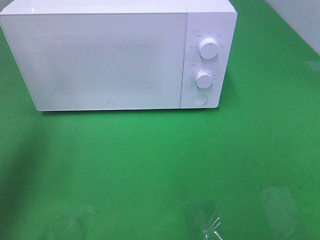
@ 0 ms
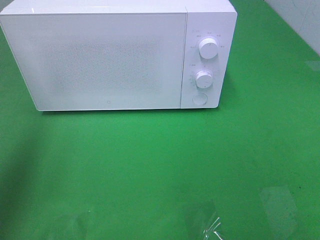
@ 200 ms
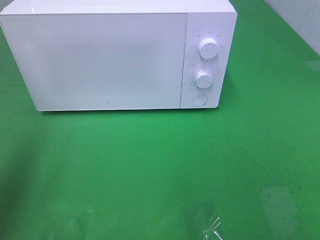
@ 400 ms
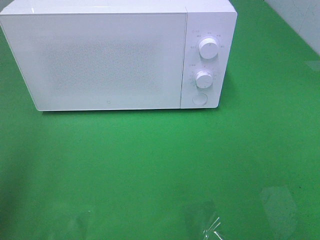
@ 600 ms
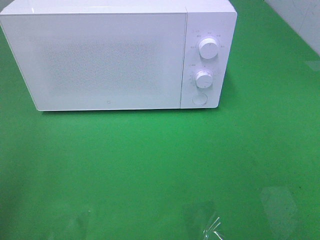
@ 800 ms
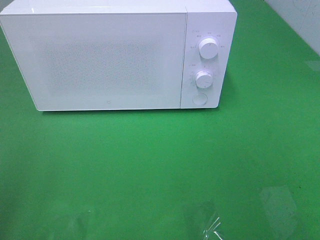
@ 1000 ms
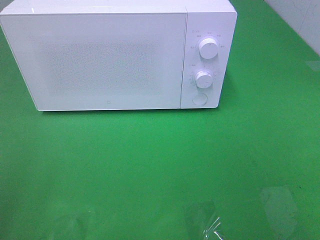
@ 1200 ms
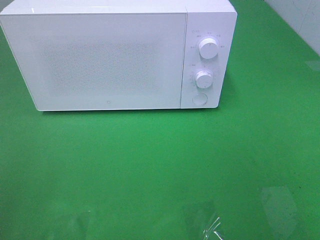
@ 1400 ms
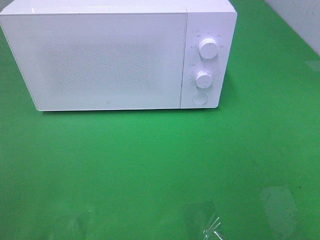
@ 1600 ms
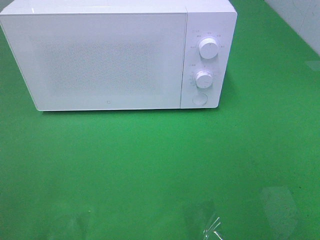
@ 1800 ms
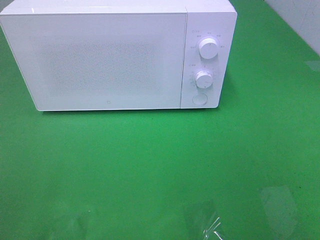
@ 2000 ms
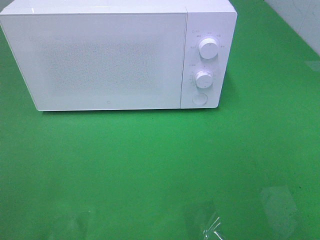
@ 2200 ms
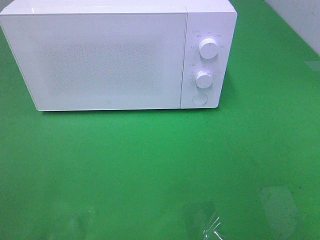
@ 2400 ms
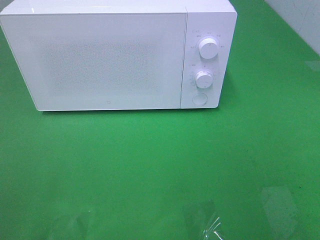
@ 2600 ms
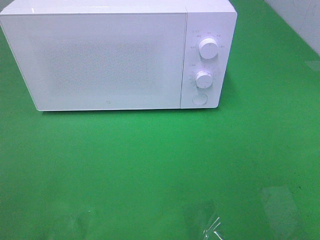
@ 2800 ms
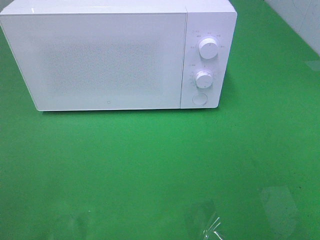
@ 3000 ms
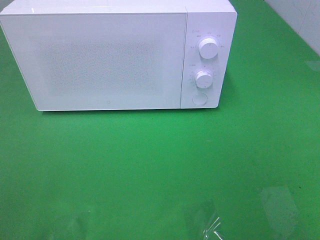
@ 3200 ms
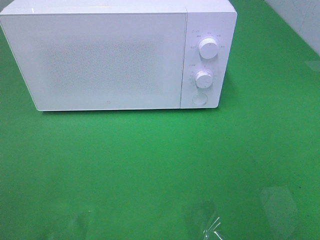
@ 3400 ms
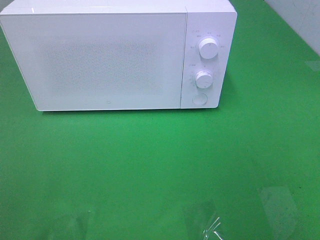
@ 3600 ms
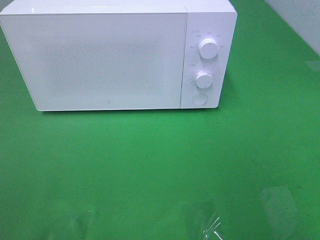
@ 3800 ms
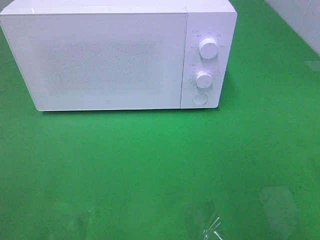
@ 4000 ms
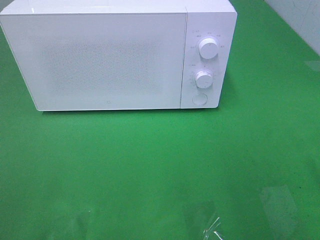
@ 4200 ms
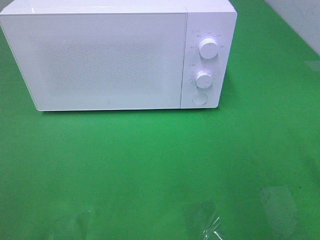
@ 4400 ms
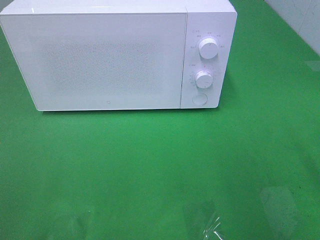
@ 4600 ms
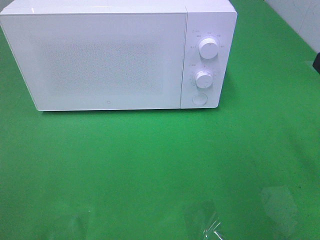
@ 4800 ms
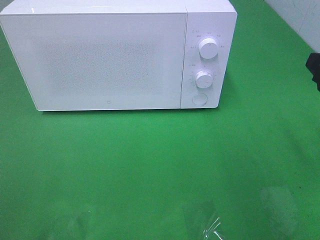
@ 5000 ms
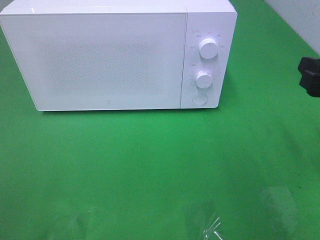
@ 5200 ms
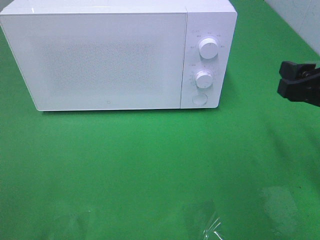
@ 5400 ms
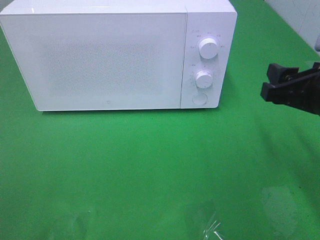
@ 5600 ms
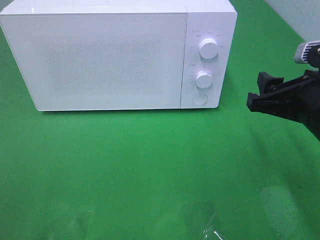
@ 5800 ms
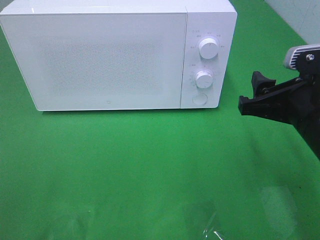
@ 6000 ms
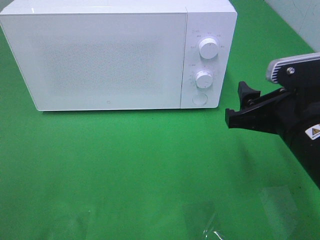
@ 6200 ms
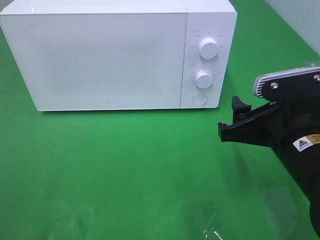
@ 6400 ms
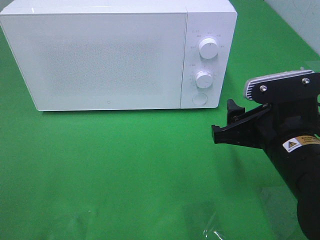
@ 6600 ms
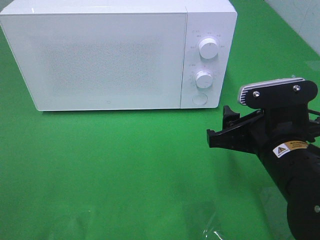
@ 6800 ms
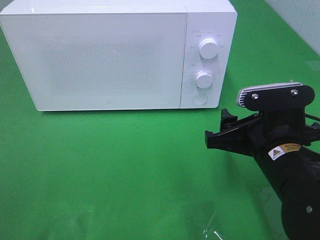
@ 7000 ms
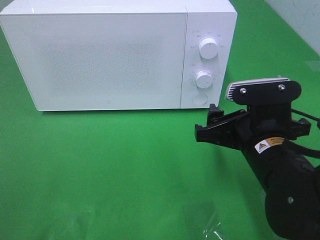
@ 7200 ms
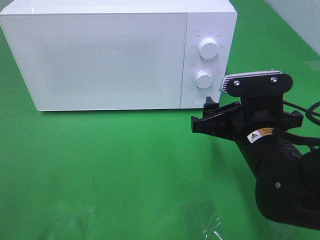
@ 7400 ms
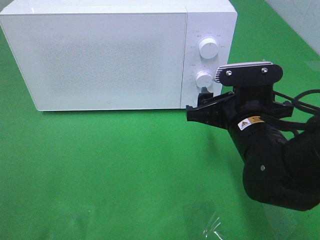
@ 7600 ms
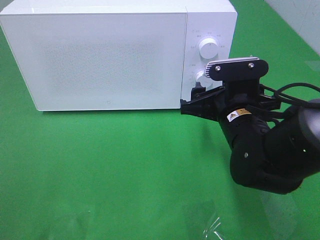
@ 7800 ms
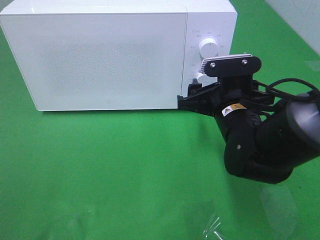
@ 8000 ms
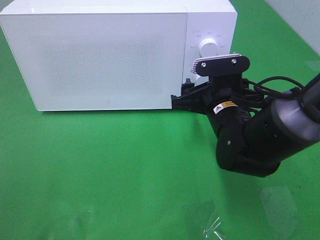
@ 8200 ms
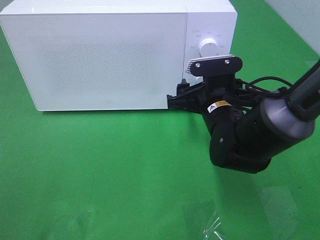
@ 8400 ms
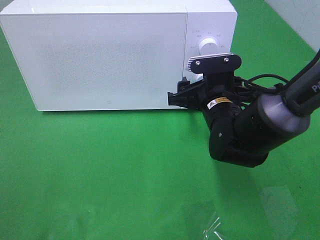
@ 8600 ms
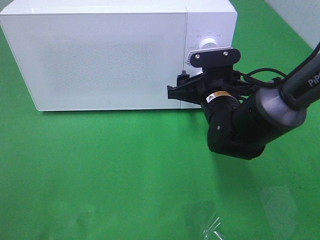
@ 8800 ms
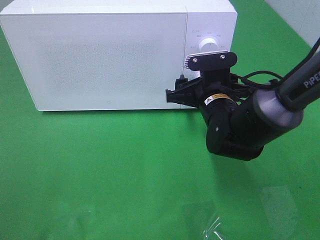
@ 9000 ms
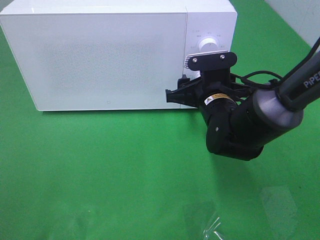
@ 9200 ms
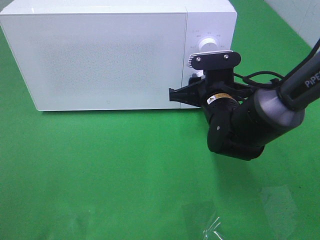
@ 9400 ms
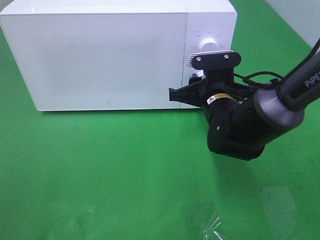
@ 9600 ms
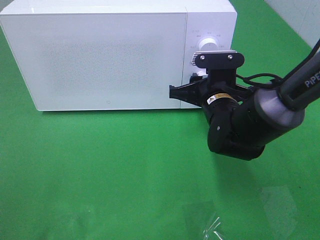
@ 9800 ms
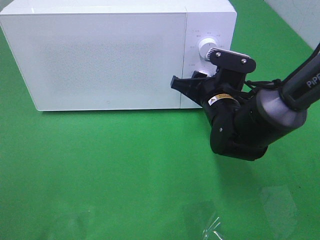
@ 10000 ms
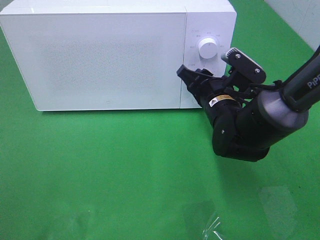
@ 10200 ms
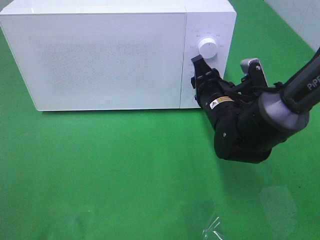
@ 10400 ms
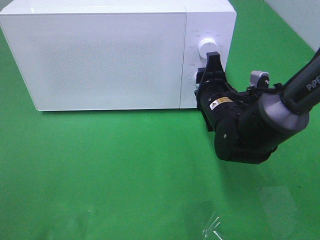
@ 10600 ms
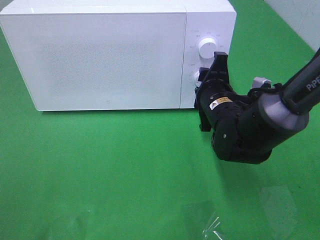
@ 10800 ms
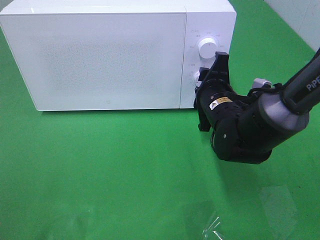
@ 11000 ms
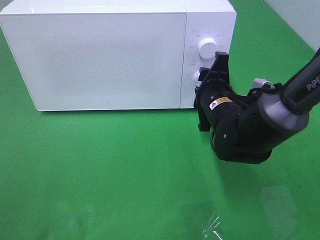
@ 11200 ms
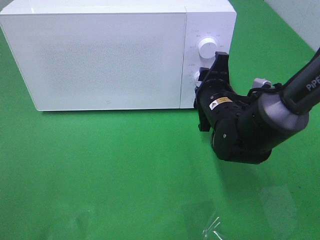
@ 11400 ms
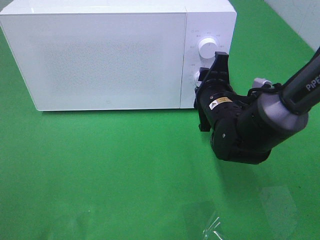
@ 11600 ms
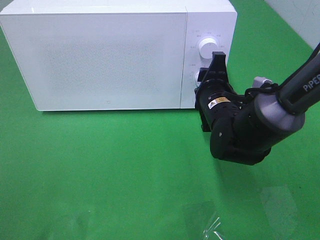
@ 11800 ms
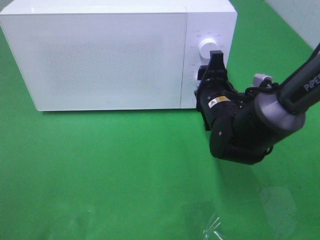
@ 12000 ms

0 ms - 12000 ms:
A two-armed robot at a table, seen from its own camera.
Task of the whole recording: Heat the burger.
0 ms - 1600 ms: The left gripper moves backward, roughly 25 cm.
4400 ms - 6000 ms: The right gripper moves to the left, downward and forward, about 10 cm.
6000 ms - 7600 ms: The right gripper heads to the left and downward, covering approximately 10 cm.
7600 ms - 9000 ms: The right gripper is displaced forward by approximately 10 cm.
9000 ms - 10400 ms: The right gripper closes its fingers.

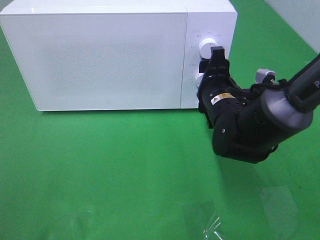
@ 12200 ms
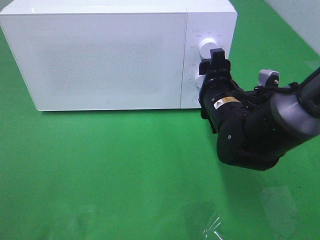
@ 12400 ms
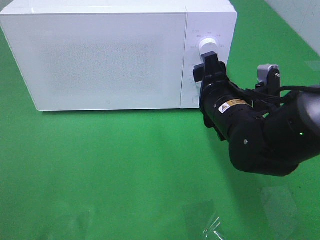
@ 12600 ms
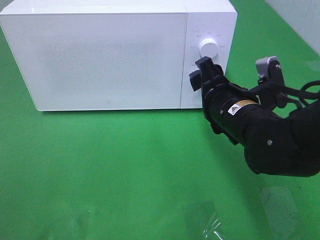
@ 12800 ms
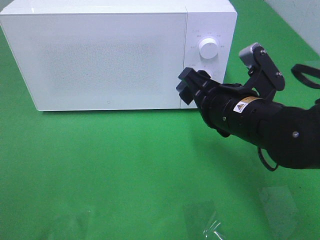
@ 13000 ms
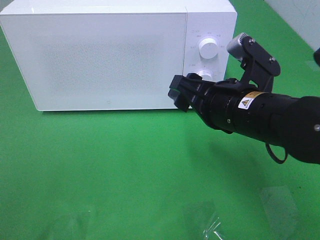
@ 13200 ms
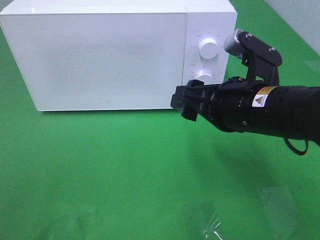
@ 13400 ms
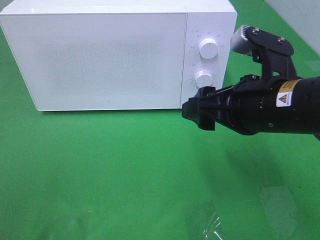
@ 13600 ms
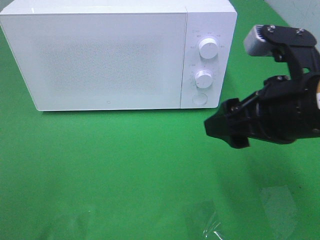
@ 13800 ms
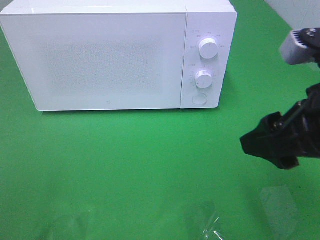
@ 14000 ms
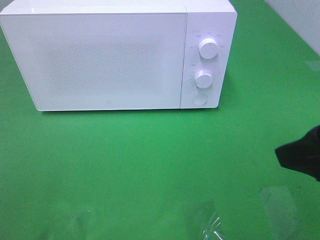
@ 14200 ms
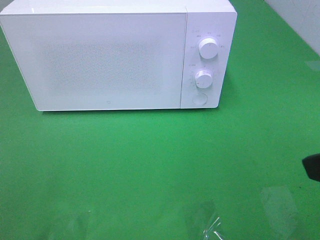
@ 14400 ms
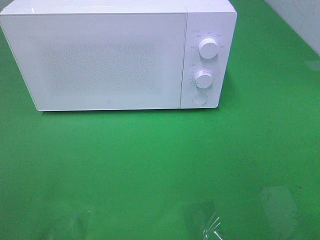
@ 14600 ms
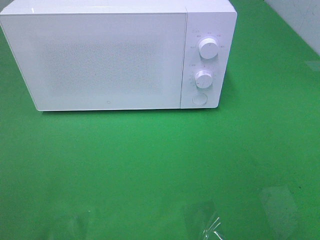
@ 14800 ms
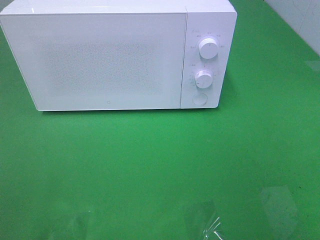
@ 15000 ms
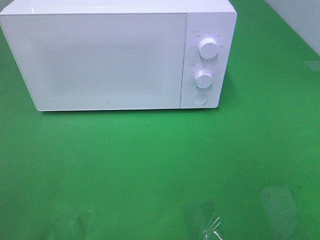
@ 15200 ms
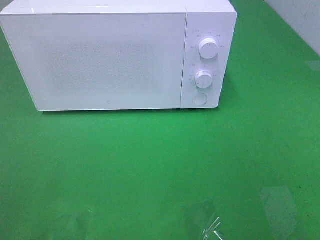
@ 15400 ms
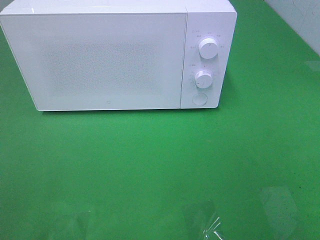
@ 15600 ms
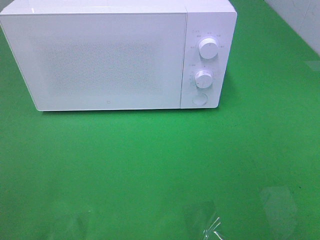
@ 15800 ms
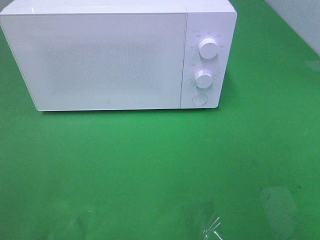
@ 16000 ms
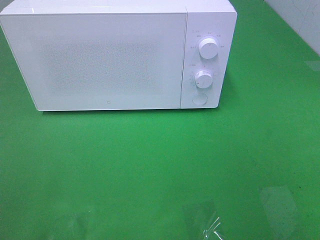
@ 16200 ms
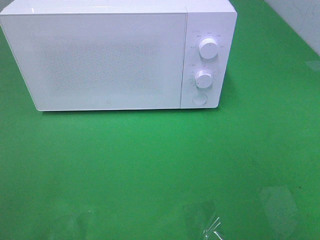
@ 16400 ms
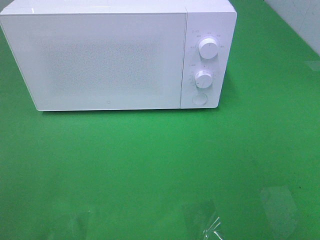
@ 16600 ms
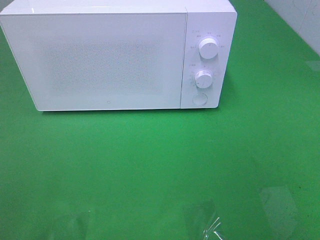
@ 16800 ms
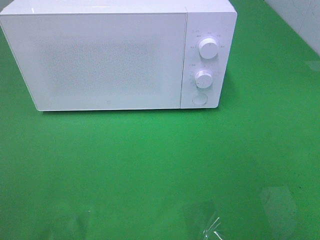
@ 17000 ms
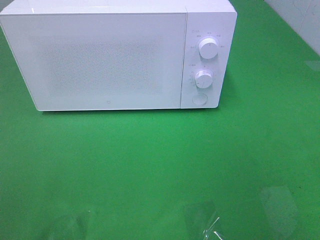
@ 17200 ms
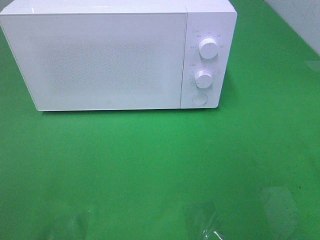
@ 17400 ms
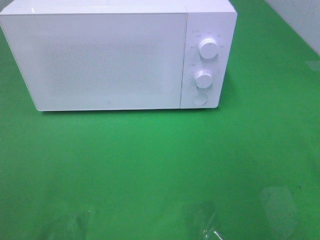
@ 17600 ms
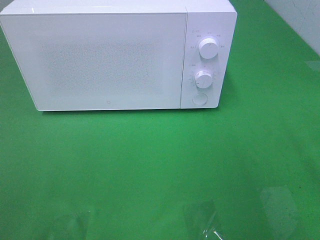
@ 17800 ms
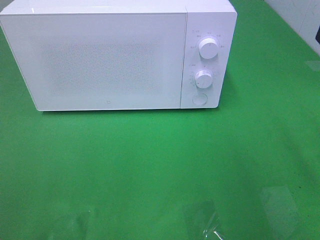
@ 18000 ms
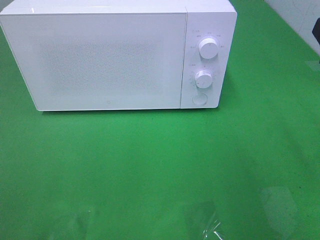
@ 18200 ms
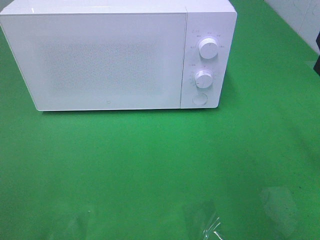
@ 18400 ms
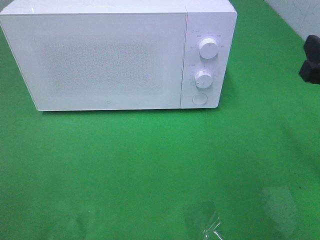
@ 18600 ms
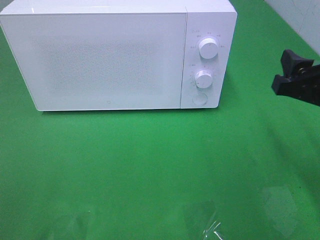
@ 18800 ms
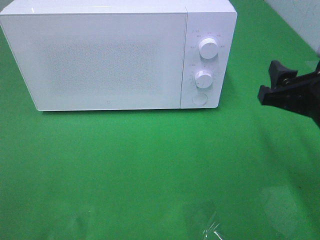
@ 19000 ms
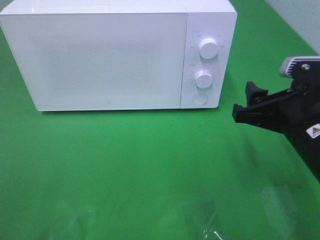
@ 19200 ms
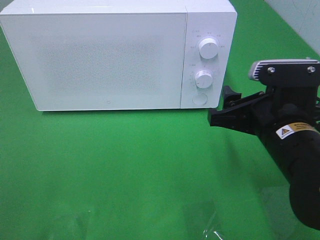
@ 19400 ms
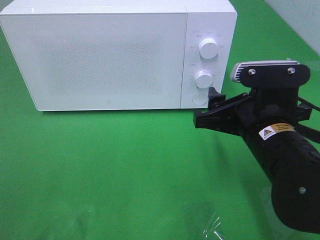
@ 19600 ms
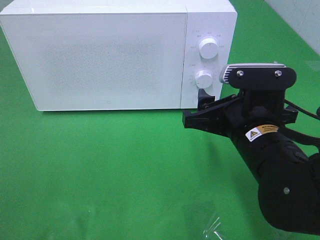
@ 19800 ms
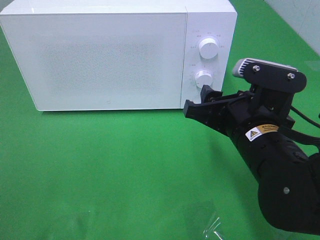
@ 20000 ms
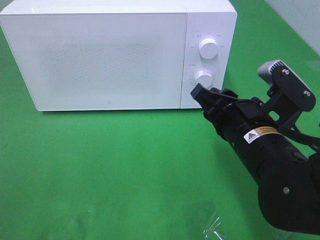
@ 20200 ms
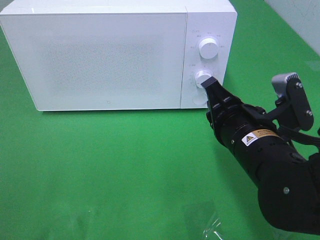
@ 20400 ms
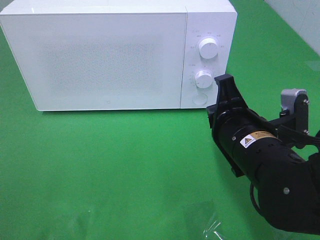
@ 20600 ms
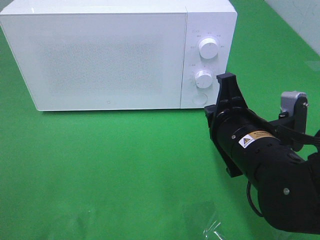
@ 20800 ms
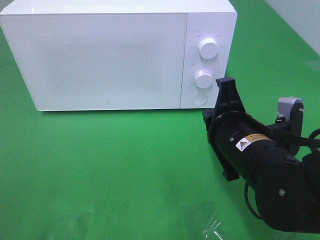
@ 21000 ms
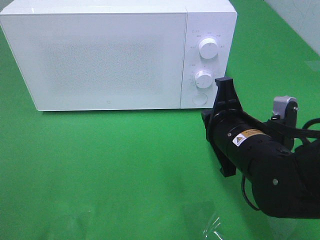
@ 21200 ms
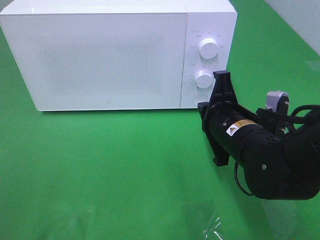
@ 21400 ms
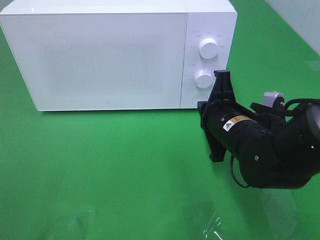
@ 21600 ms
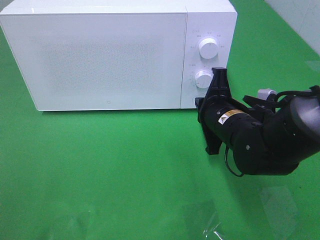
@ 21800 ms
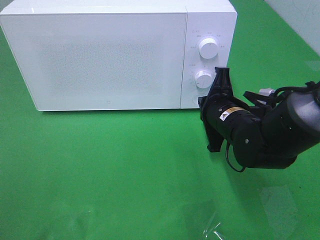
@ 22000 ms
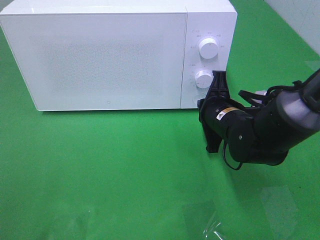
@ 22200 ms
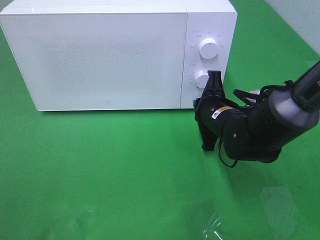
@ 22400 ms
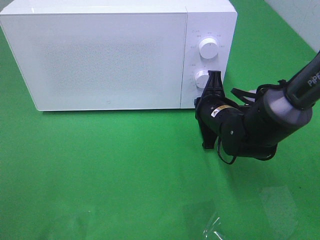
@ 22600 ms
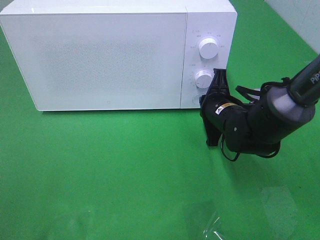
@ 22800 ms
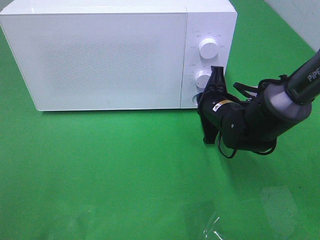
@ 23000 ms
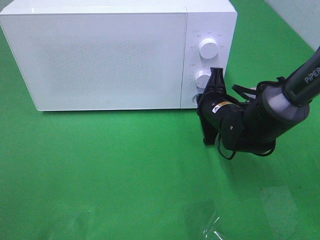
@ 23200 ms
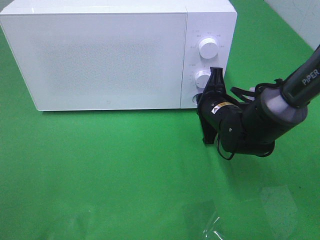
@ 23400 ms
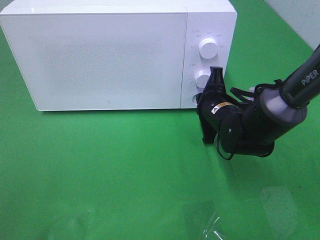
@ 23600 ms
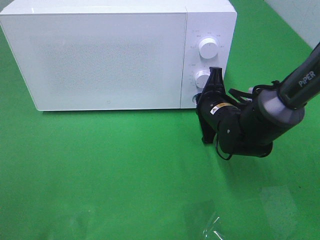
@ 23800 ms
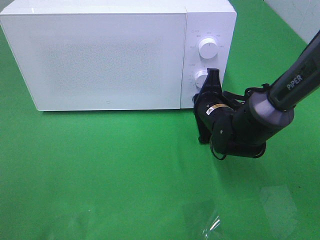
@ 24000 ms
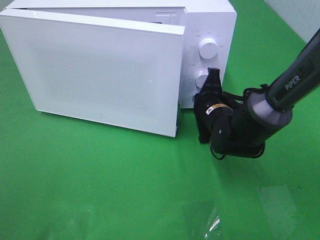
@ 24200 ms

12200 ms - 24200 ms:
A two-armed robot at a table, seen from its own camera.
Task of the whole recording: Heat the burger.
12200 ms - 13800 ms: The right gripper shifts roughly 20 cm backward and upward.
13800 ms - 15200 ms: The right gripper shifts approximately 20 cm backward and to the right.
18200 ms - 19800 ms: The right gripper heads to the left and downward, covering approximately 15 cm.
19800 ms - 21200 ms: The right gripper closes.
21200 ms - 22600 ms: The right gripper shifts roughly 10 cm forward and downward.
22600 ms - 24200 ms: There are only small adjustments of the grippers.
